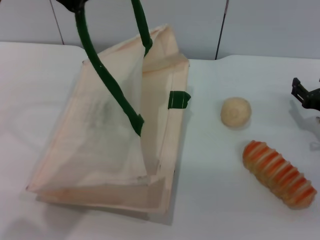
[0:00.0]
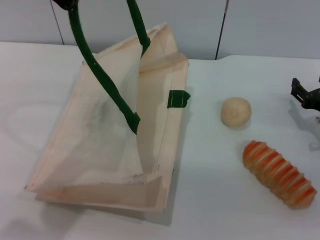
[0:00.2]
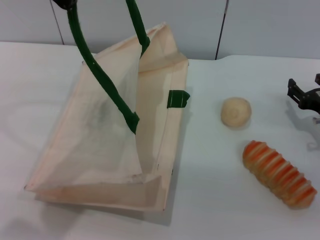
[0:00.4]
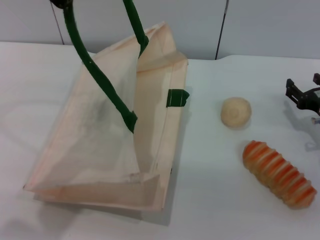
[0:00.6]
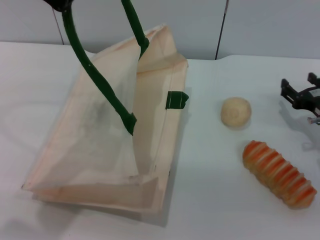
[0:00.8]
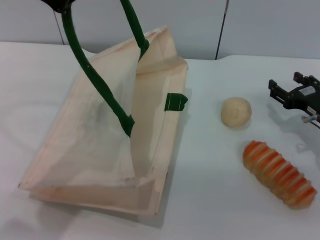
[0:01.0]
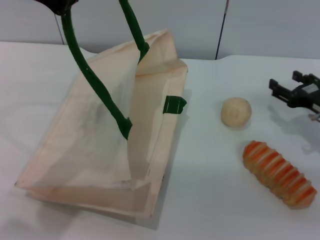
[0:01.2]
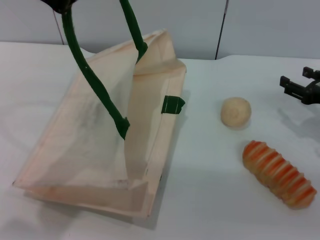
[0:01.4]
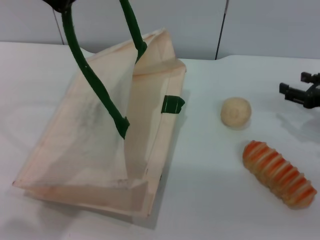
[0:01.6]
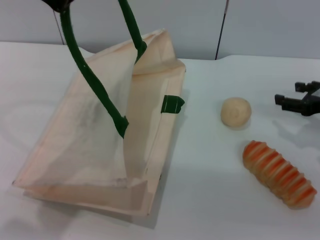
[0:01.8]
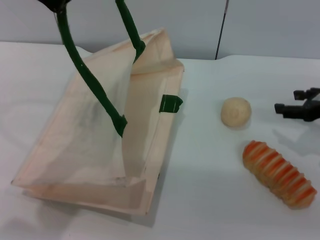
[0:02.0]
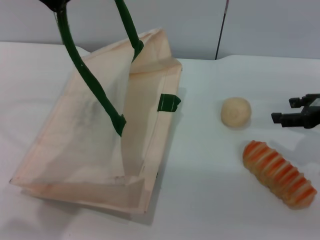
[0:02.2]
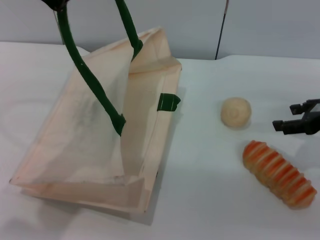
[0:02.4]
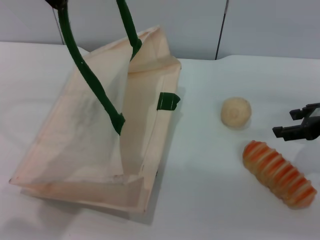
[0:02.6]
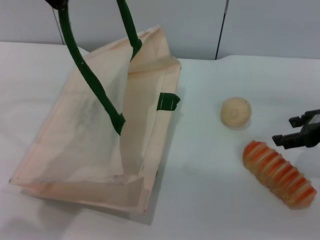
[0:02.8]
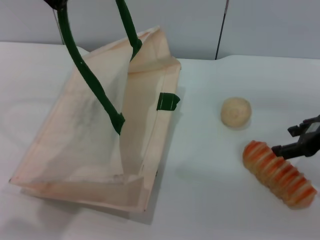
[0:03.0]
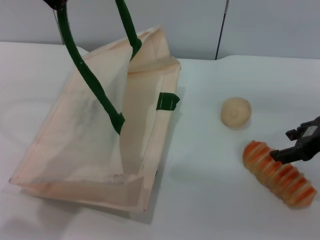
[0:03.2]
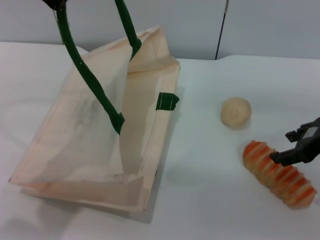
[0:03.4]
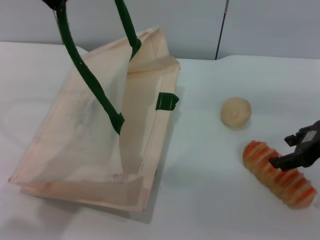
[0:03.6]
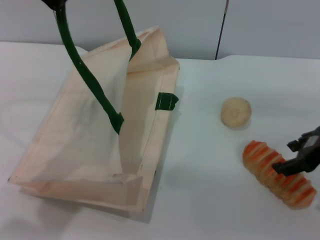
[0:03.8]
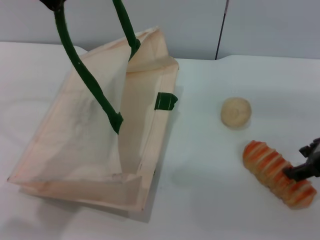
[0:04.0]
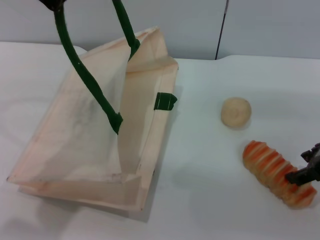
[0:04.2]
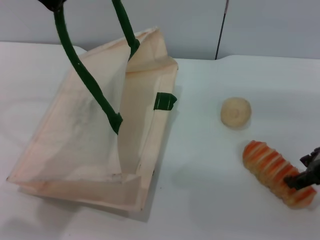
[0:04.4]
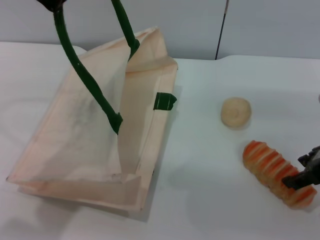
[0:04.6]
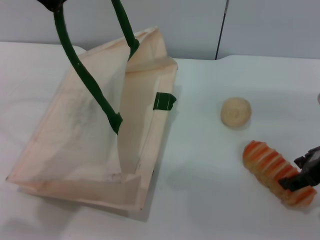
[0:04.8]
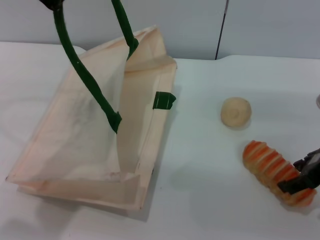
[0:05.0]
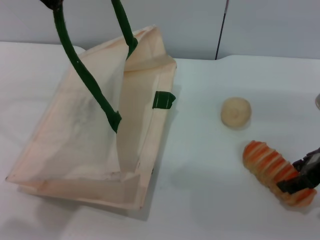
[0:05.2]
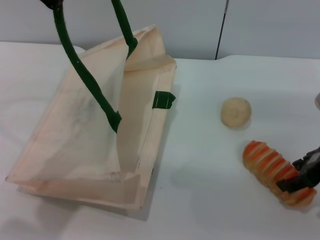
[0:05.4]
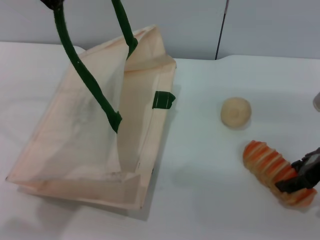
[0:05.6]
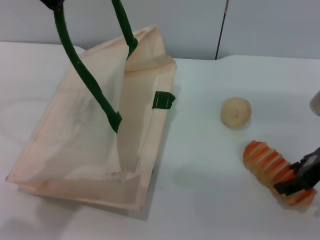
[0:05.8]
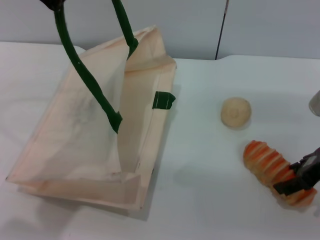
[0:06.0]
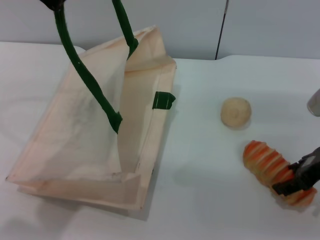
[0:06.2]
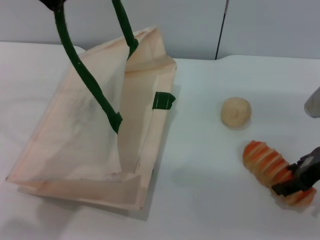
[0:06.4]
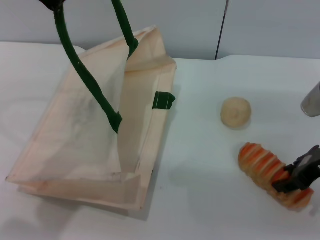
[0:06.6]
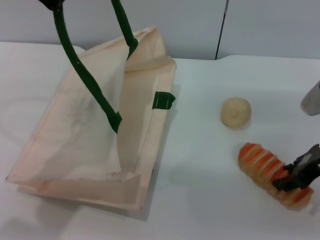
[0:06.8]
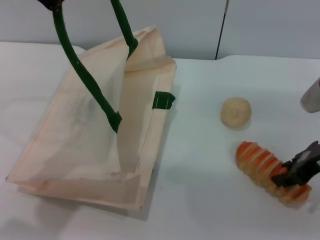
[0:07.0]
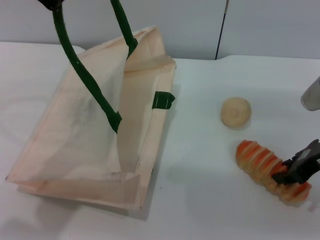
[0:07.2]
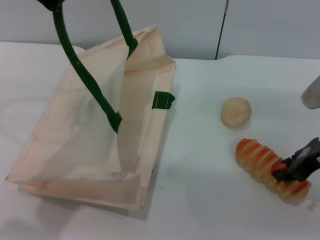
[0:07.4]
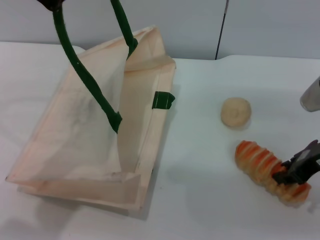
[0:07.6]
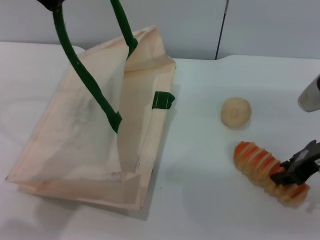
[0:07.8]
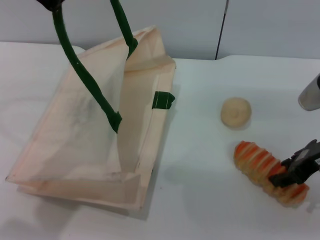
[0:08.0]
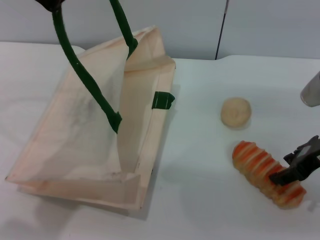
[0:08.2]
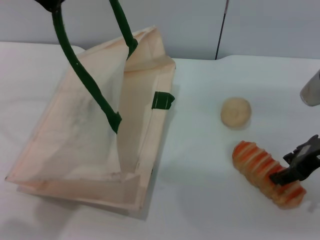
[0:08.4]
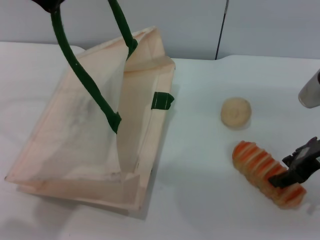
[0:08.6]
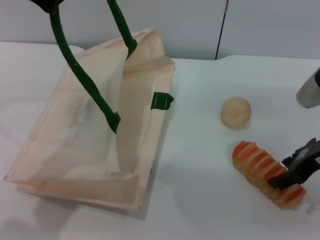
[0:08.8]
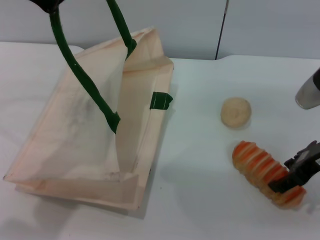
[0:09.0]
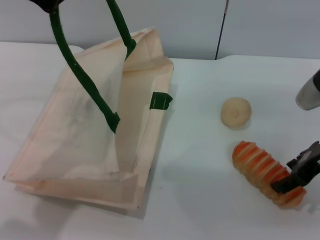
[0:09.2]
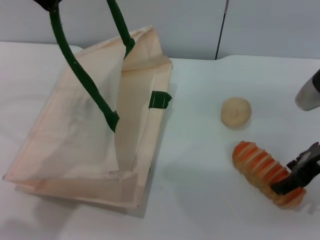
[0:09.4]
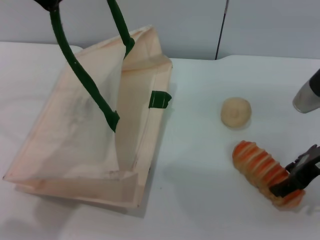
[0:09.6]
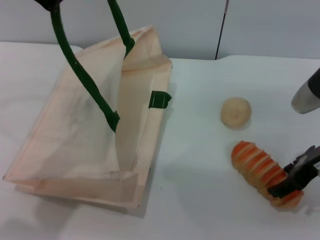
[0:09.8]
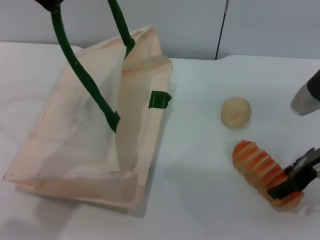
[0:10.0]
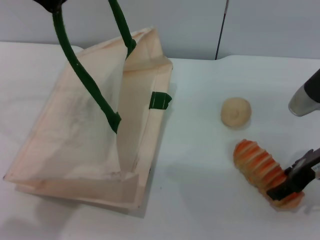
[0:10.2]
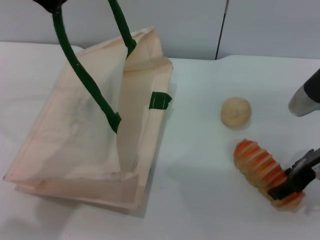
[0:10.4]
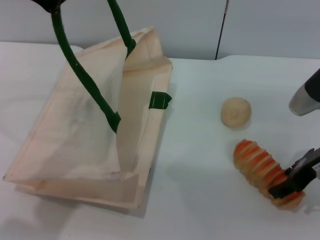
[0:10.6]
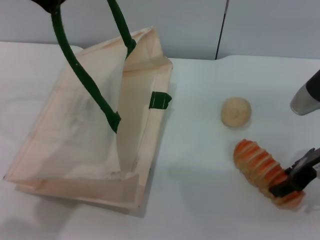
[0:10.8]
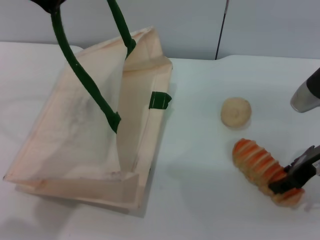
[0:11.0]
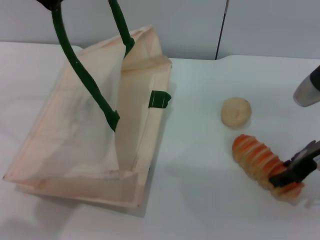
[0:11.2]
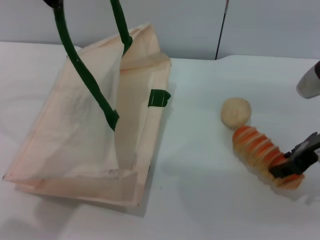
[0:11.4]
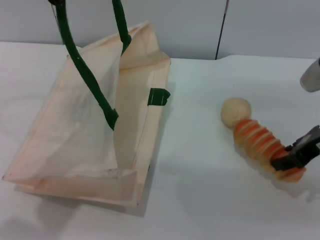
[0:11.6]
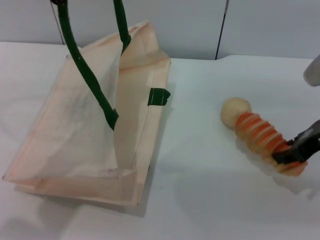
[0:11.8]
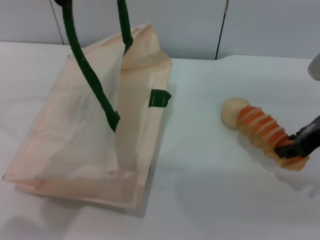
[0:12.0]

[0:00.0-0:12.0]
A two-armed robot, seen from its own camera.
Task of the whole recording: pick up the bread and egg yolk pastry from the table and place it in the white handbag.
0:00.0 to 0:01.6: The right gripper travels upward by about 5 cm.
0:01.6 to 0:03.0: The right gripper travels upward and to the left by roughly 10 cm.
0:03.0 to 0:06.0: The grippers move only a little.
0:06.0 to 0:07.6: The right gripper closes up.
0:07.6 to 0:09.0: The right gripper opens its fingers.
0:09.0 to 0:10.4: The grippers stay close to where they were, moving slightly.
0:10.4 to 0:12.0: The right gripper closes up.

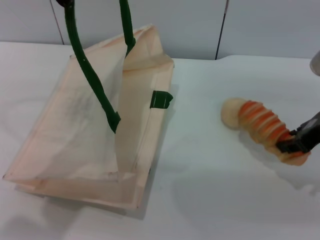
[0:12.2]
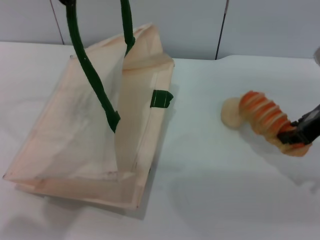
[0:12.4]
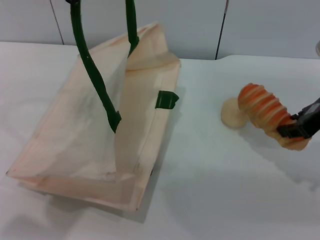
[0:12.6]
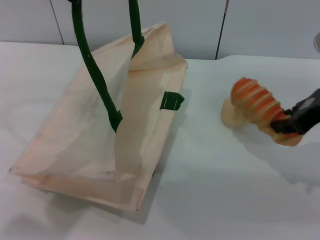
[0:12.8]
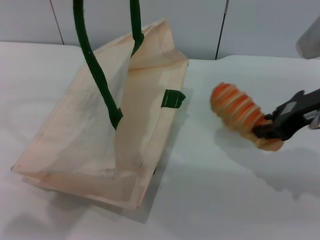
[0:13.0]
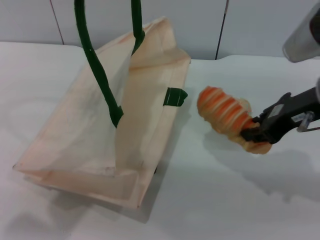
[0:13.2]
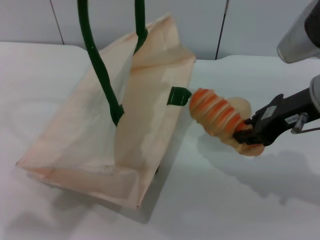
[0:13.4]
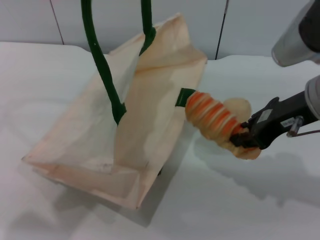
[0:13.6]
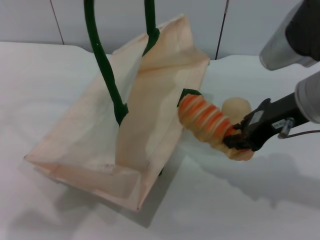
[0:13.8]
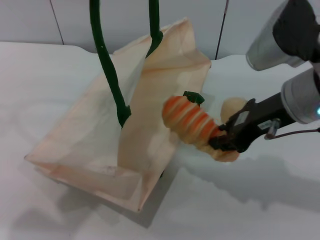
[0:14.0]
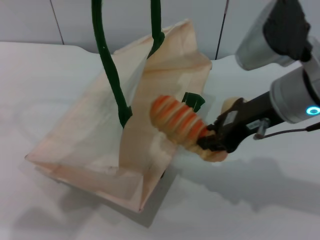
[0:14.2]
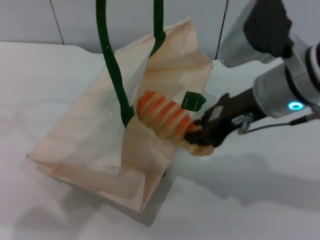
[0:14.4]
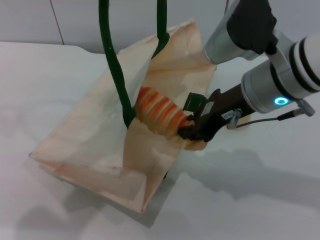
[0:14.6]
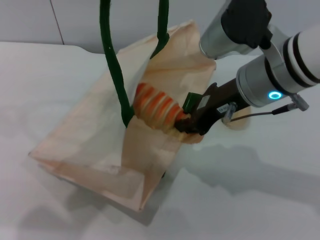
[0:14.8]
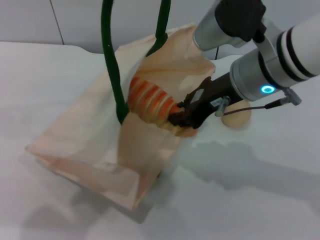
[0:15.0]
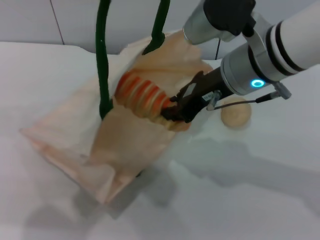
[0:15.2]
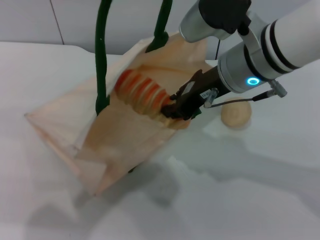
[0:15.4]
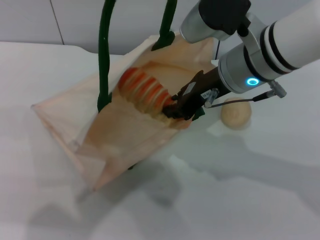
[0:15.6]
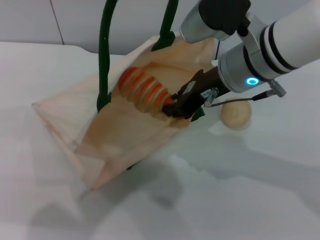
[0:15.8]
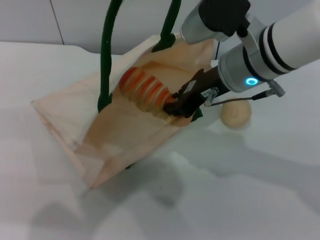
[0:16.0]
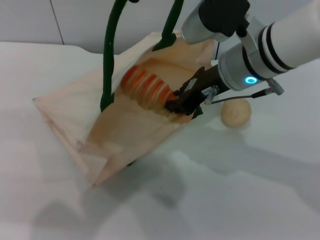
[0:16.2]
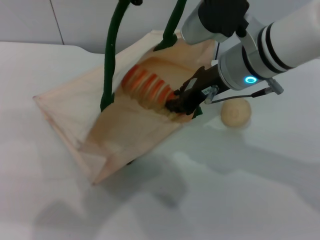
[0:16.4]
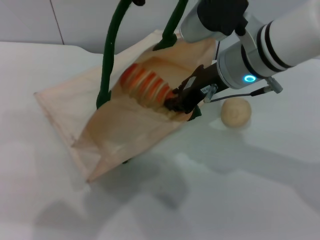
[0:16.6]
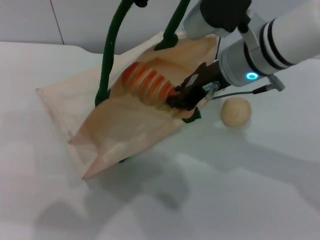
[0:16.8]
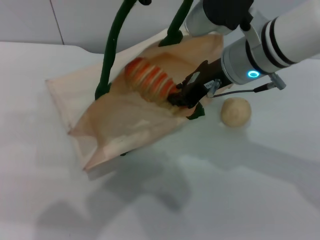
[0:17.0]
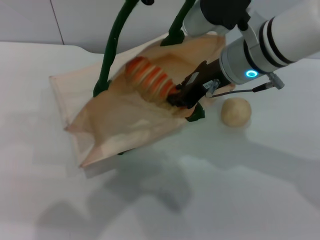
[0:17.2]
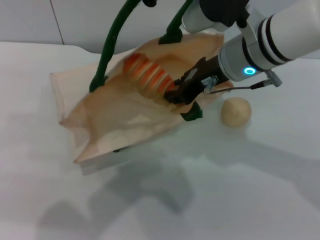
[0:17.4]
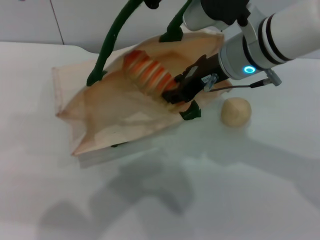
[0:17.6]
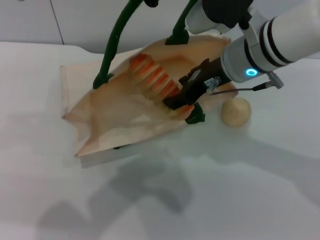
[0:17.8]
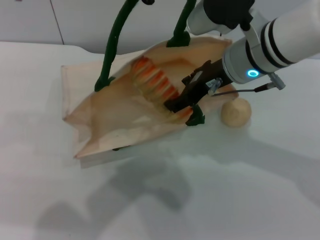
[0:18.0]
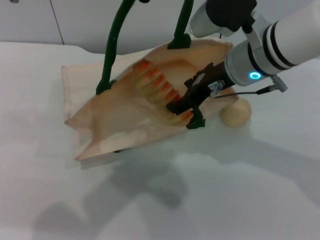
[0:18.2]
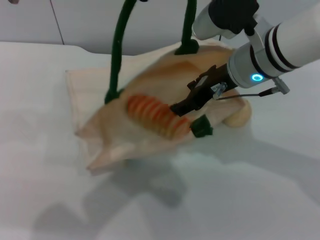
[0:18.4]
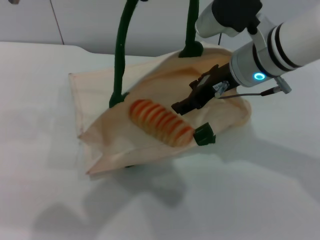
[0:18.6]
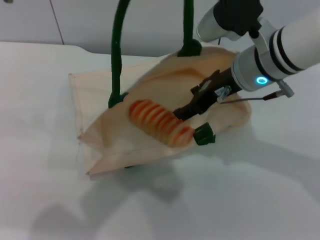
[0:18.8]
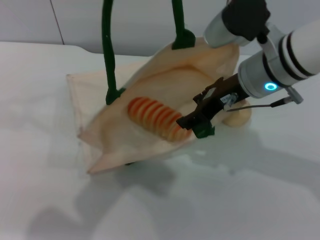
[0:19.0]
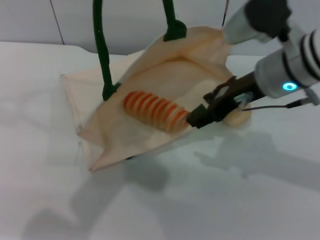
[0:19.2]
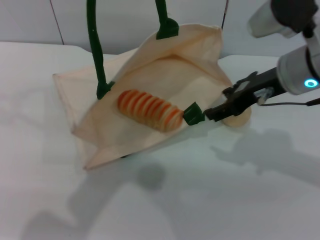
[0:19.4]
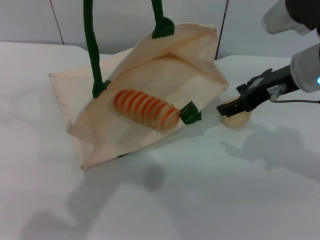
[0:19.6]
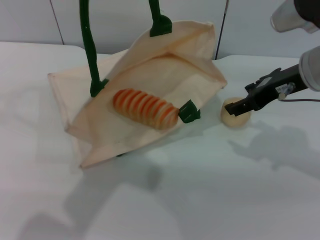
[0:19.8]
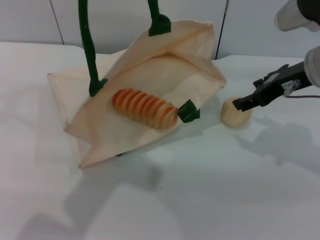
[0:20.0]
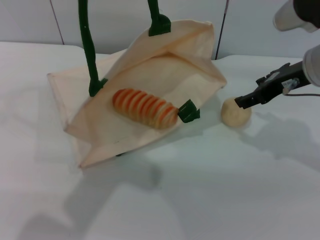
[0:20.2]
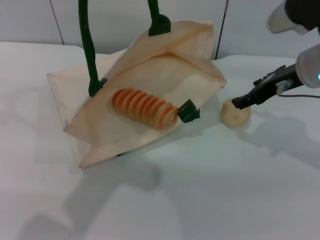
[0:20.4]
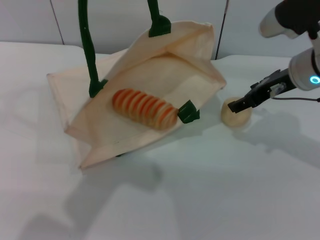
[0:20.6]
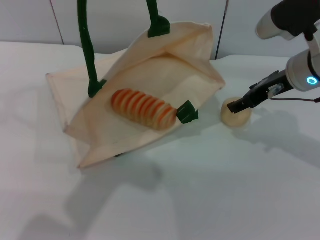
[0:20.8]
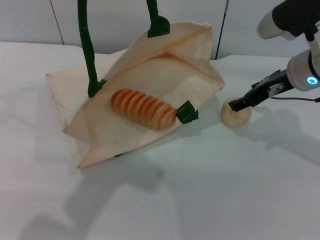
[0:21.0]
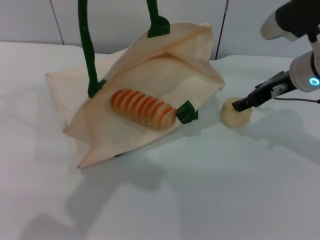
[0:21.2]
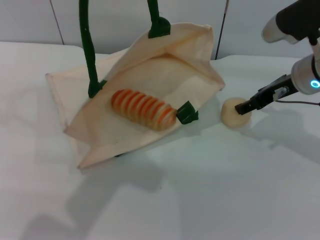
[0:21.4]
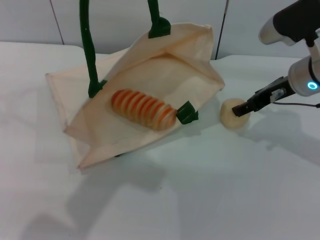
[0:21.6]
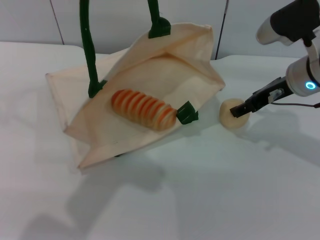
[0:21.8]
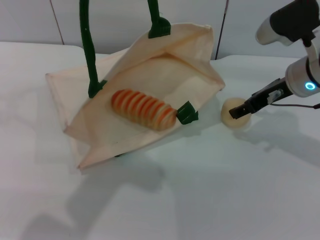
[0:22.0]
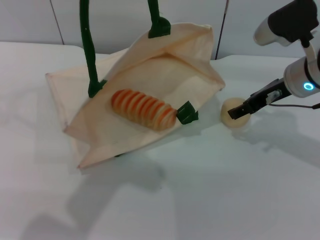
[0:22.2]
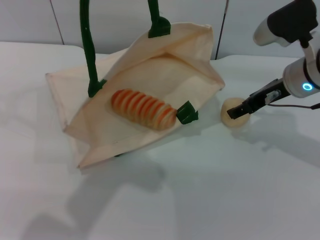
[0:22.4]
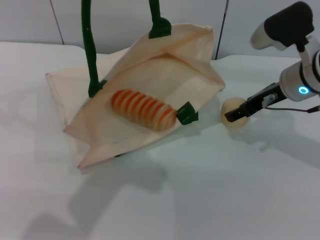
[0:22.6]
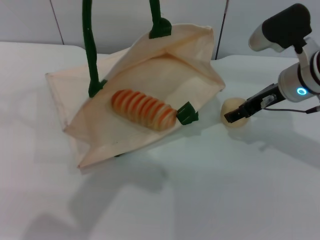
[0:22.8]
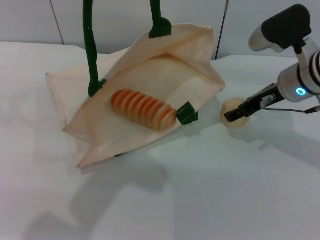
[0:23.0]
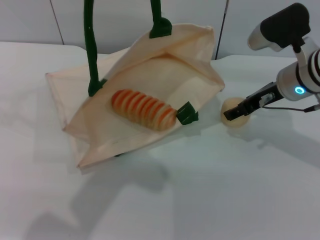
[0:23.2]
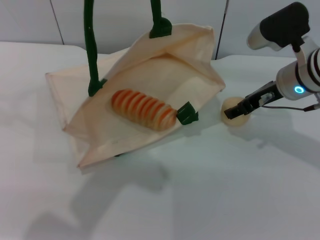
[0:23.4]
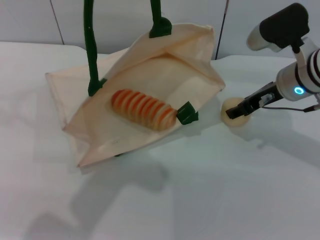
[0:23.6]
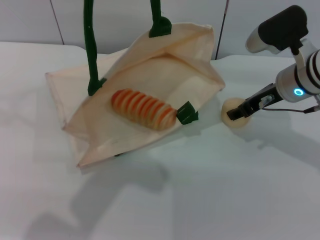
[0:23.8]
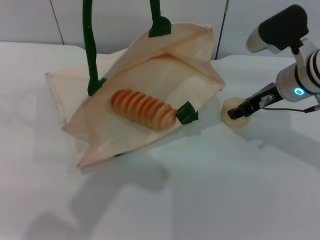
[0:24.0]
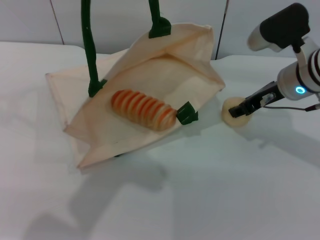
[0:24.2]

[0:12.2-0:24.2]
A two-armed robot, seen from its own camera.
Task of the whole recording: pick up the bread and egg yolk pastry from the table and place it in the white handbag.
Step, 0:12.6 to 0:20.0: Place the bread into the woven bag with the right gripper.
0:12.2 to 0:13.8: The right gripper is displaced to the left by roughly 10 cm.
0:13.8 to 0:15.2: The right gripper moves to the left, roughly 10 cm.
0:15.2 to 0:16.6: The grippers stay close to where they were, moving slightly.
0:16.6 to 0:18.2: The right gripper opens its fingers.
0:18.2 to 0:19.8: The right gripper heads to the right, covering some 10 cm.
0:19.8 to 0:21.2: The right gripper changes place by roughly 5 cm.
0:21.2 to 0:22.6: The grippers stay close to where they were, moving slightly.
0:22.6 to 0:24.2: The right gripper closes.
